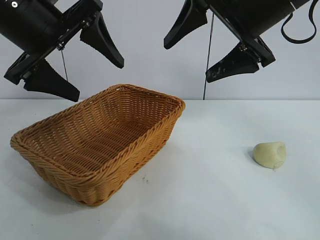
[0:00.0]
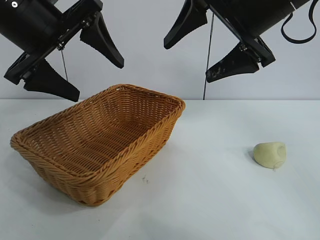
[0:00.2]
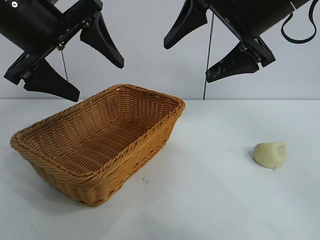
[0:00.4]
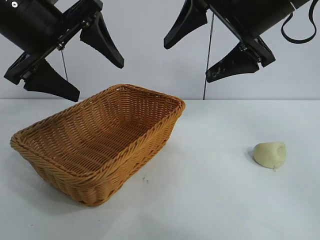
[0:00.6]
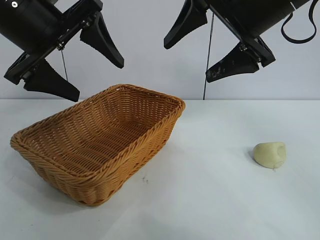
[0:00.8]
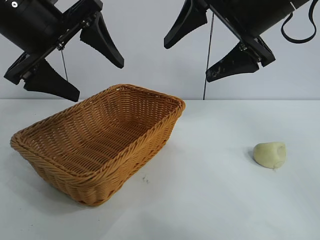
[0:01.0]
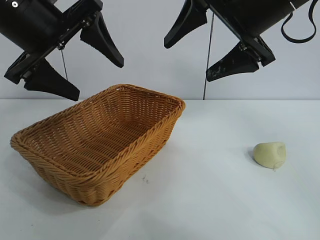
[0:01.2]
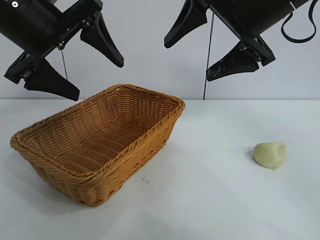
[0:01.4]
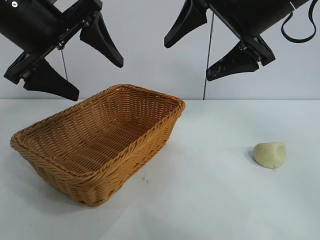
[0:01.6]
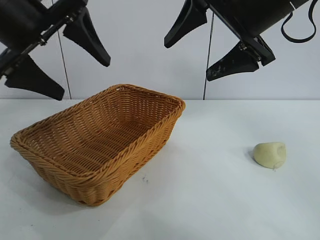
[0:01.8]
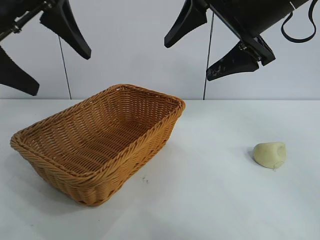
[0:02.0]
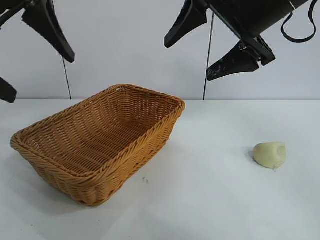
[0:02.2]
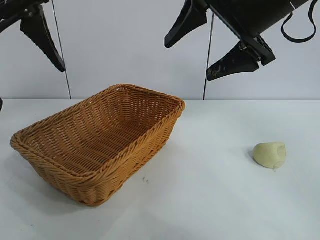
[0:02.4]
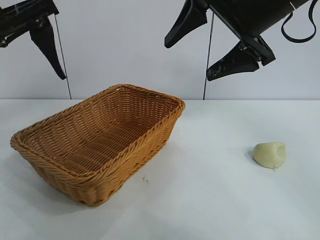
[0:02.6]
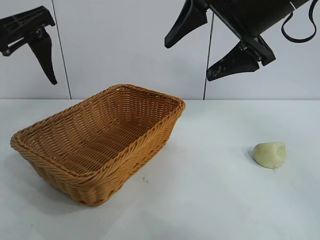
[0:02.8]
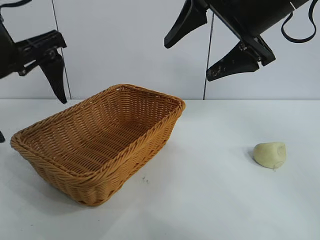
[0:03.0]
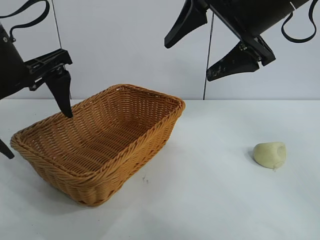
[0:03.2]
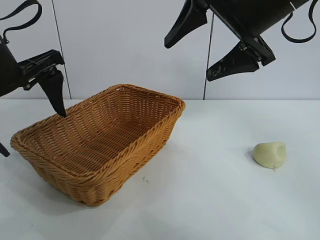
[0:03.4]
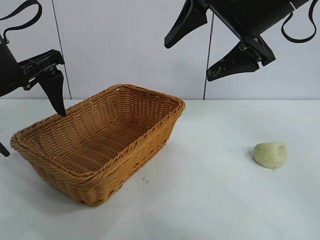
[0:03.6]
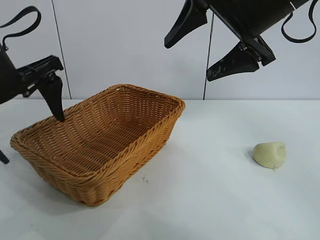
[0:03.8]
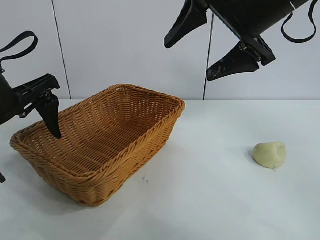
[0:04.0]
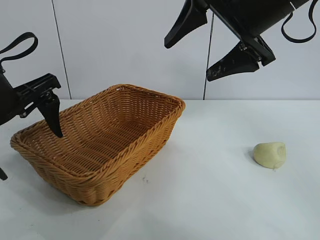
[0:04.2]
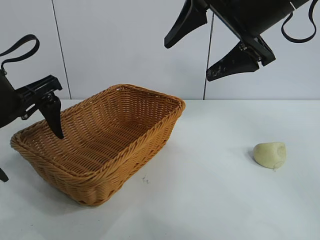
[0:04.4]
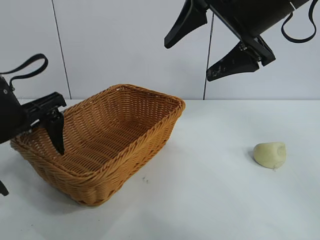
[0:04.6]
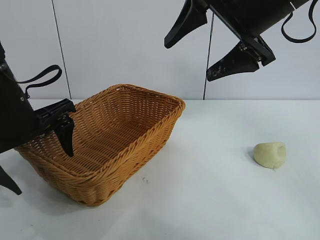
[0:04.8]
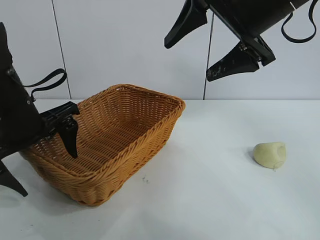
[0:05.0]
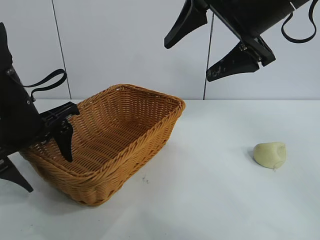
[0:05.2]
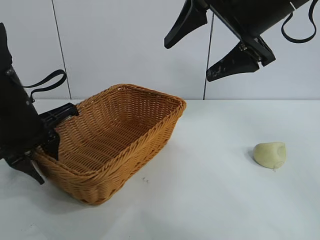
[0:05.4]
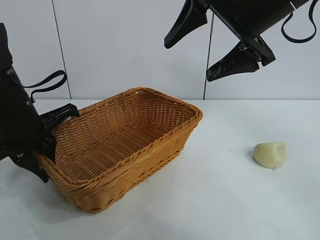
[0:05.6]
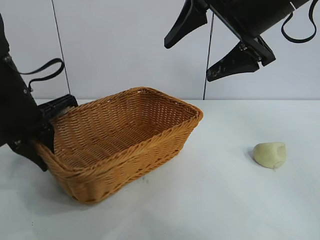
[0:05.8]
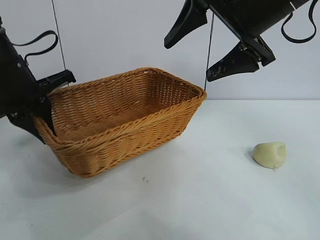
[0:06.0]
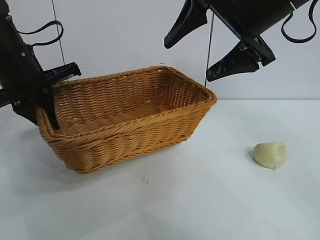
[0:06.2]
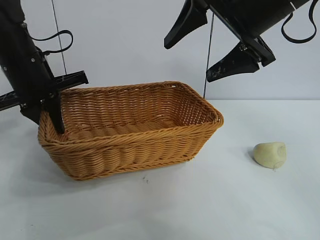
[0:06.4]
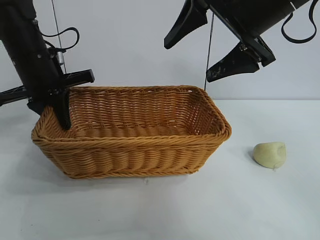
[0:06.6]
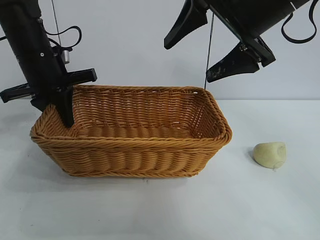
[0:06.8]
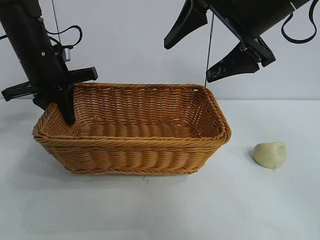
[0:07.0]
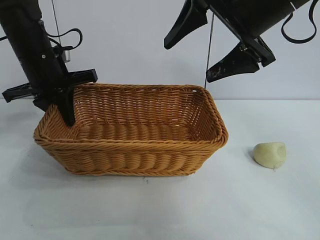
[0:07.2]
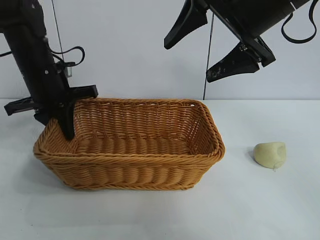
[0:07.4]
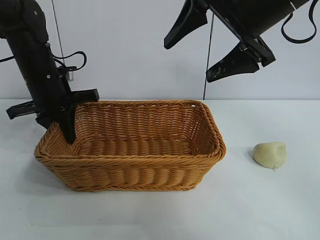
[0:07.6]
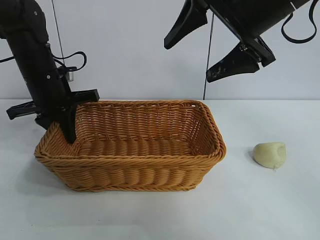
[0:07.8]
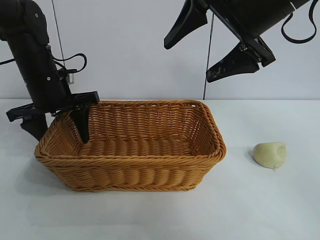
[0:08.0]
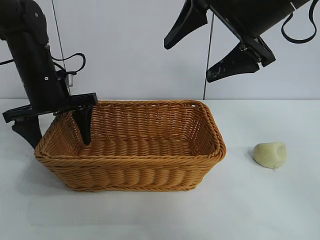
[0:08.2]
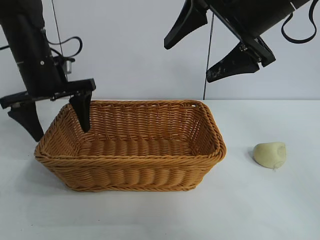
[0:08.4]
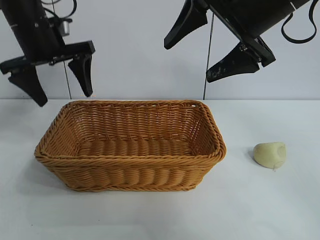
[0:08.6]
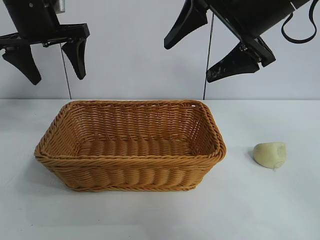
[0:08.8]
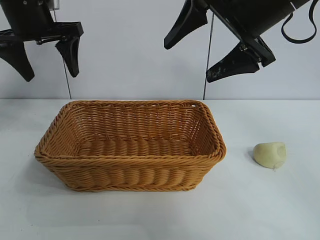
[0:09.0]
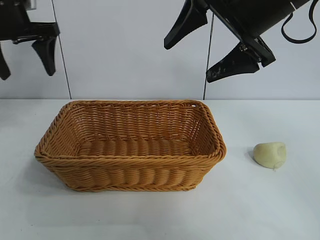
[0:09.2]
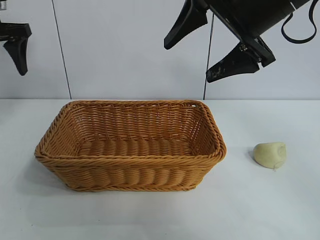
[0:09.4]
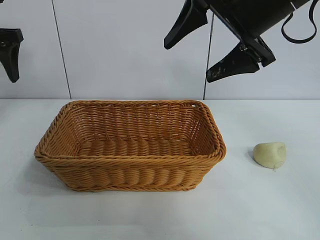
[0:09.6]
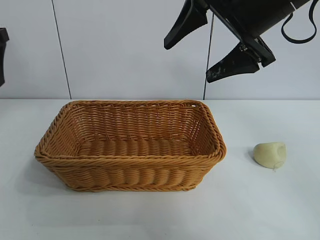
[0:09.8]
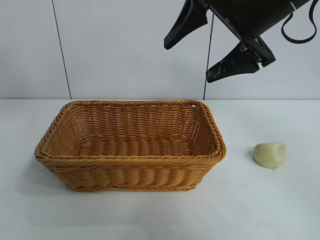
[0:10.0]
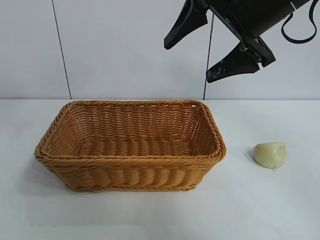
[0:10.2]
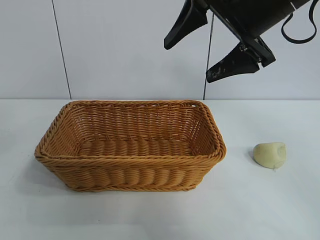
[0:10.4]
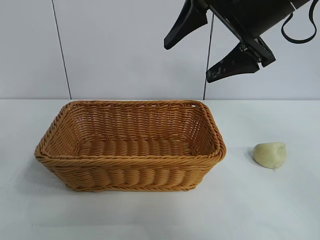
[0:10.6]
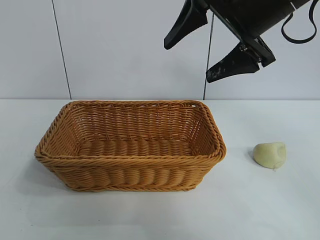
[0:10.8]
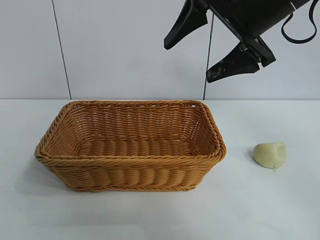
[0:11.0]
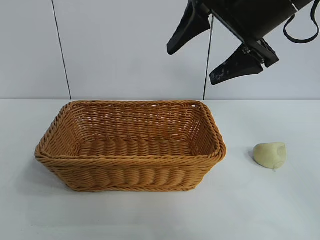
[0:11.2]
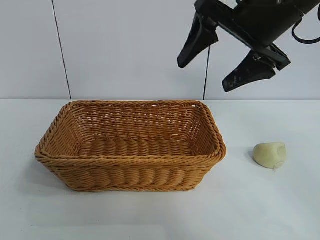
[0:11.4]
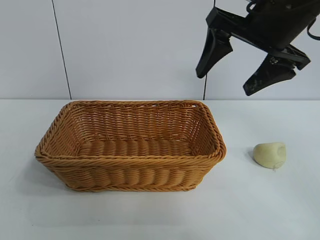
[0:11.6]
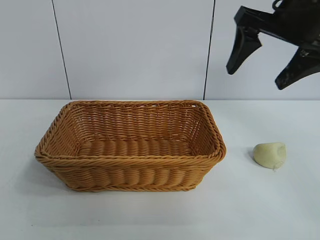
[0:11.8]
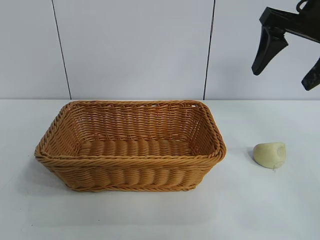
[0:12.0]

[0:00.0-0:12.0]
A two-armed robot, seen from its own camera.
Task of the whole recording: pick up the egg yolk pastry and put it into the basket.
Step, 0:01.0 to 0:05.4: Grasp the basket with left gripper.
Step, 0:05.8 to 0:07.8: Place the basket in the center of view with left gripper.

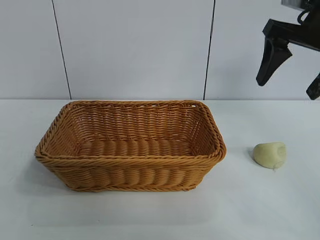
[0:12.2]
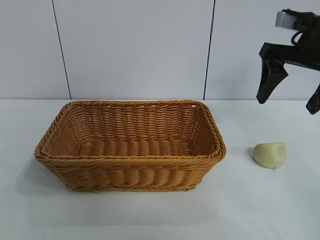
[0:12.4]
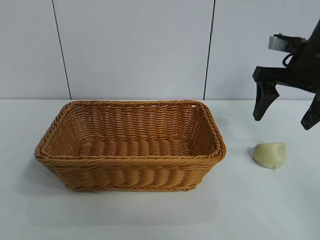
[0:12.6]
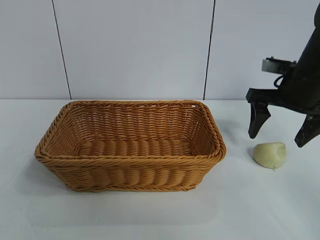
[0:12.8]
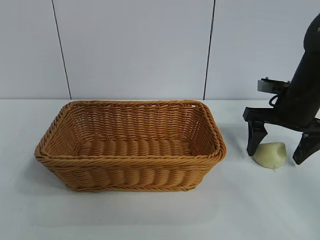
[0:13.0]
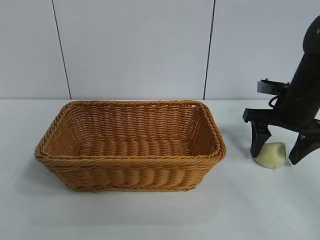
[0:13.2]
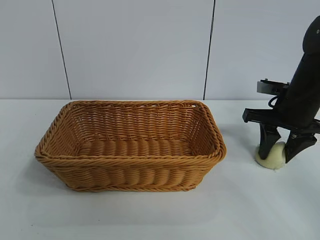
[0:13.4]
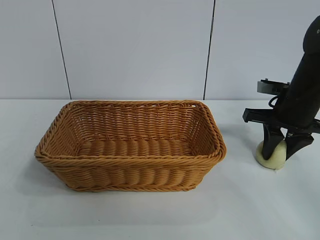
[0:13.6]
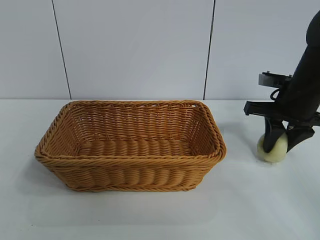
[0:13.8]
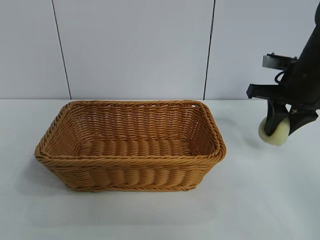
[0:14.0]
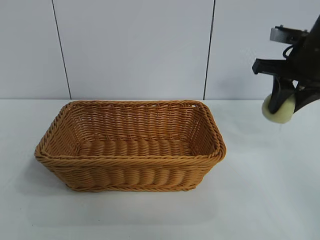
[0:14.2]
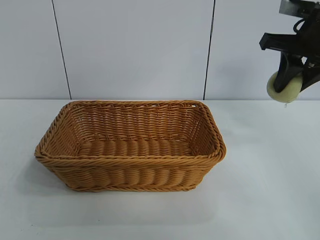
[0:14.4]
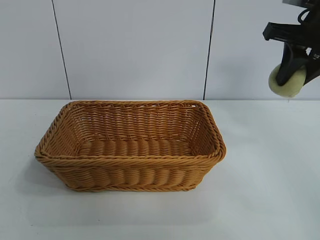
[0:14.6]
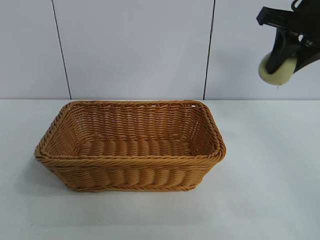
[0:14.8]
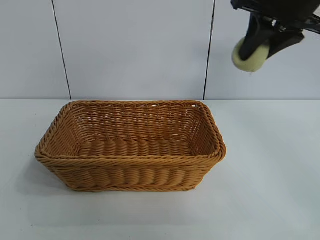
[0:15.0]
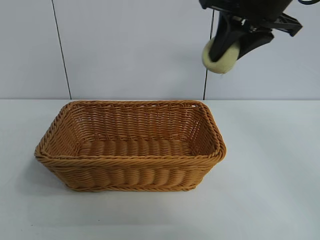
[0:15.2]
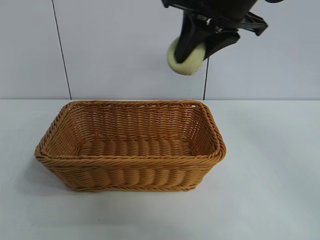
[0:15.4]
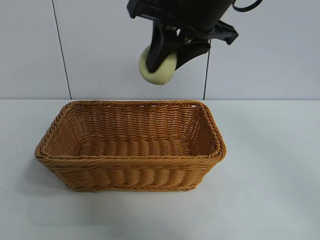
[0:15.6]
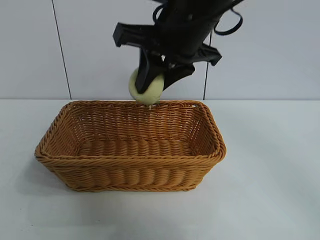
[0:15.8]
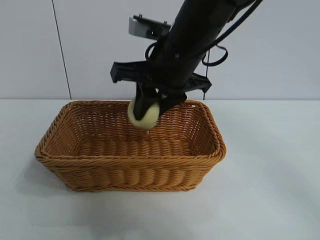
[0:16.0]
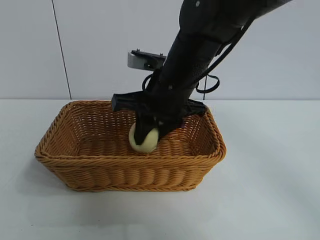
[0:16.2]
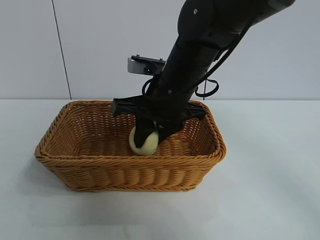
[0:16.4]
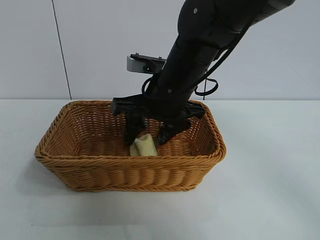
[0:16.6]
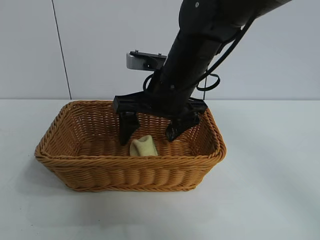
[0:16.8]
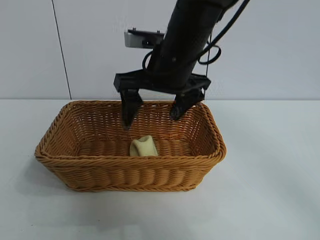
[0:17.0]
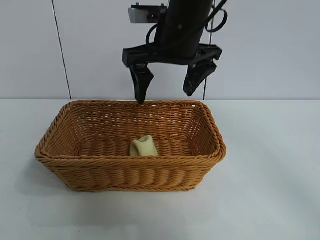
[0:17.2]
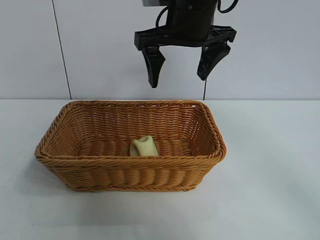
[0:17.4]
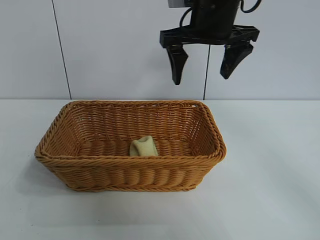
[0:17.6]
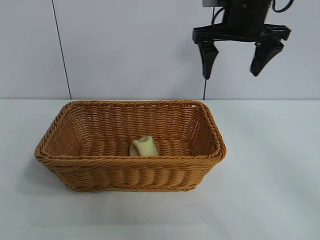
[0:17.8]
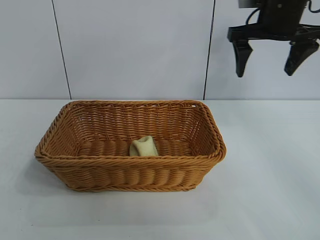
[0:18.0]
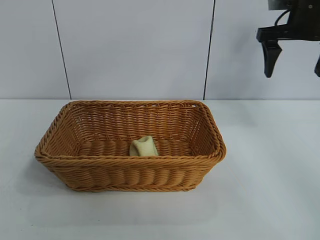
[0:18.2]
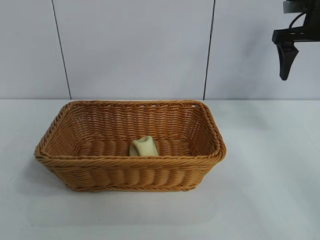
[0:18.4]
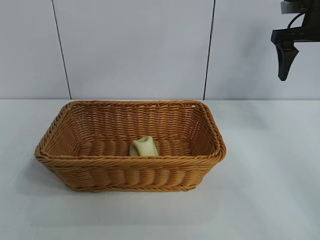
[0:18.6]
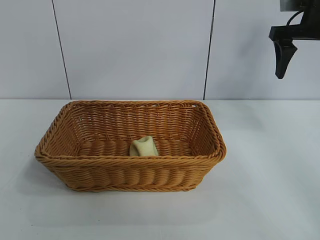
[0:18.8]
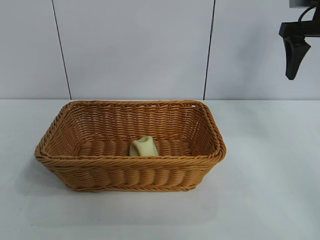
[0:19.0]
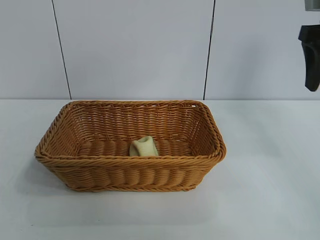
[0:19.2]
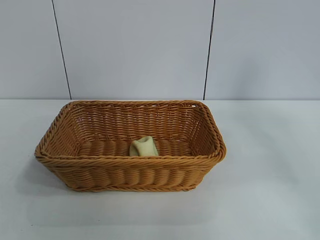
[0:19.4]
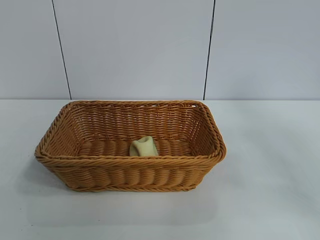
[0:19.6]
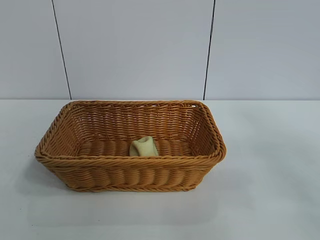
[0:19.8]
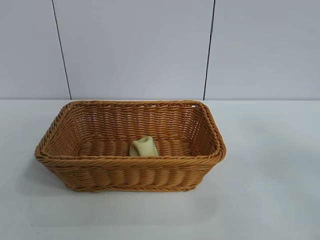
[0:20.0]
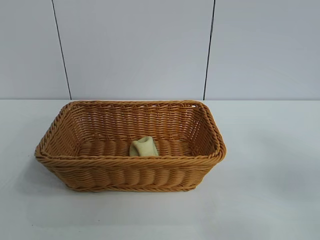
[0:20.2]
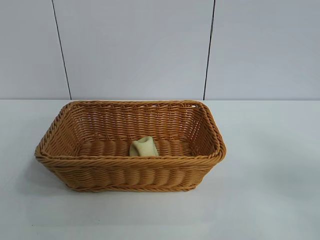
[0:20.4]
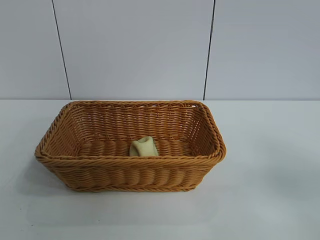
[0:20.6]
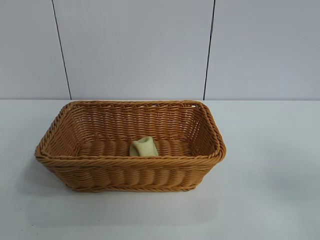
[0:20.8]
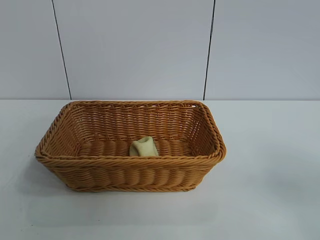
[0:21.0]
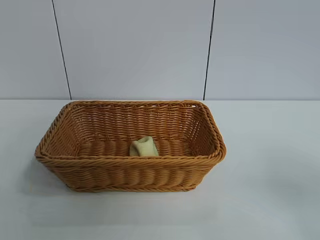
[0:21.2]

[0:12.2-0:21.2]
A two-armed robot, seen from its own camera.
Task of the whole recording: pick up the egg yolk pastry and put it into the basket.
Step, 0:13.6 to 0:16.4: Place the egg yolk pastry in the basket with right gripper.
